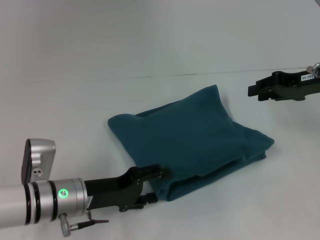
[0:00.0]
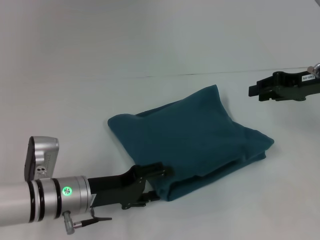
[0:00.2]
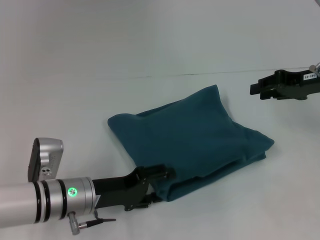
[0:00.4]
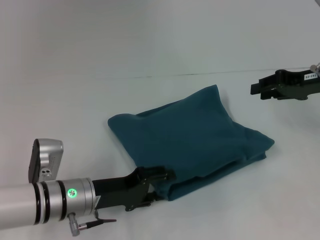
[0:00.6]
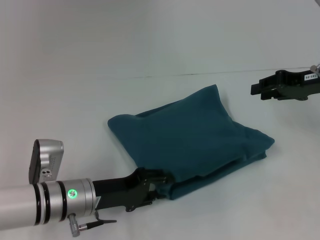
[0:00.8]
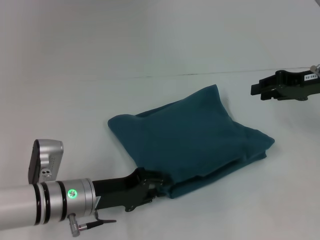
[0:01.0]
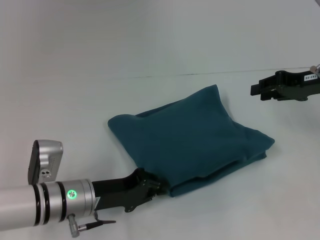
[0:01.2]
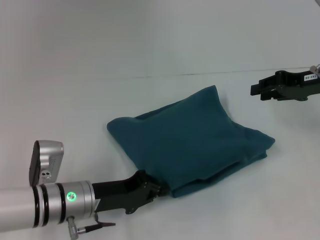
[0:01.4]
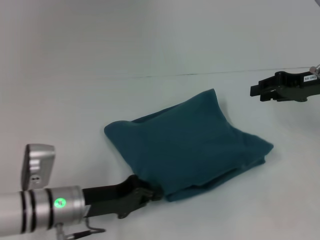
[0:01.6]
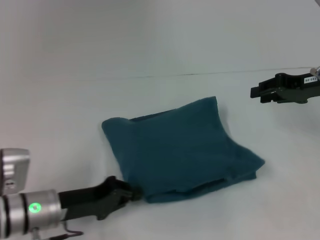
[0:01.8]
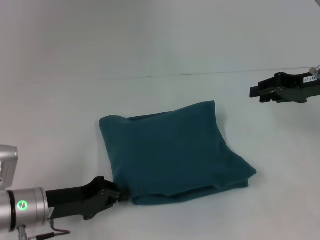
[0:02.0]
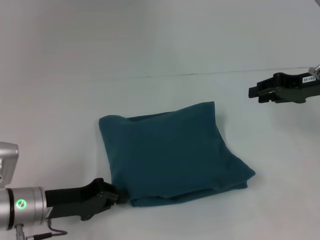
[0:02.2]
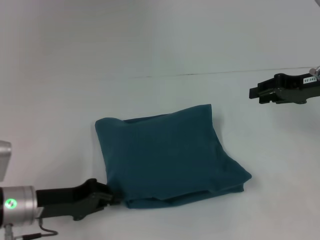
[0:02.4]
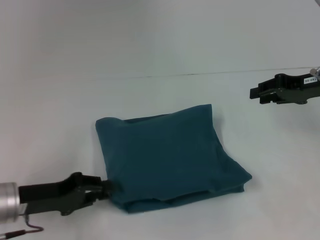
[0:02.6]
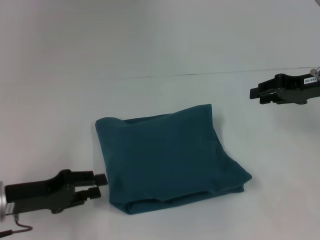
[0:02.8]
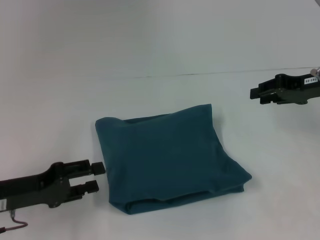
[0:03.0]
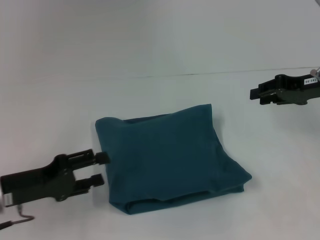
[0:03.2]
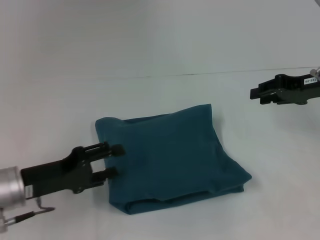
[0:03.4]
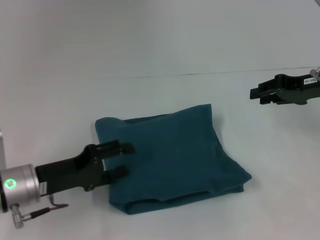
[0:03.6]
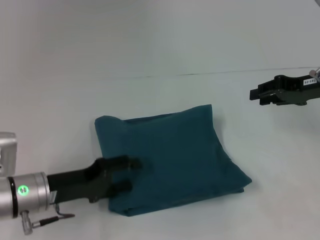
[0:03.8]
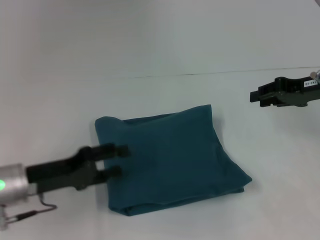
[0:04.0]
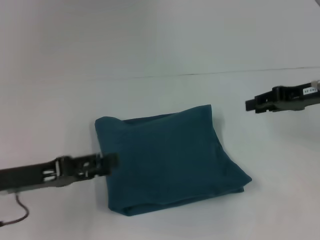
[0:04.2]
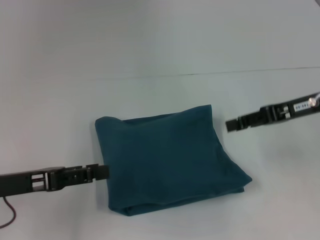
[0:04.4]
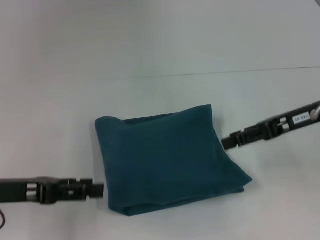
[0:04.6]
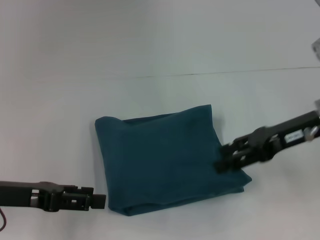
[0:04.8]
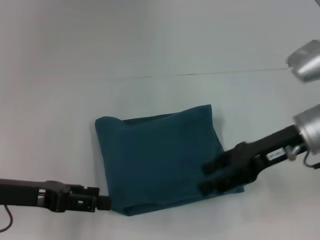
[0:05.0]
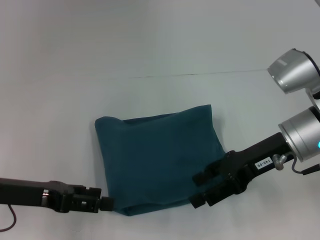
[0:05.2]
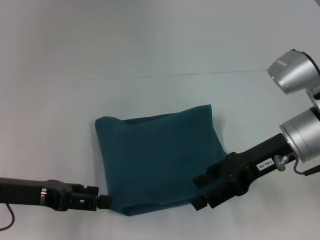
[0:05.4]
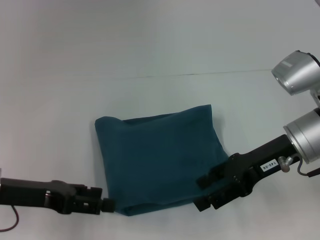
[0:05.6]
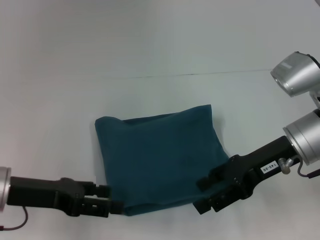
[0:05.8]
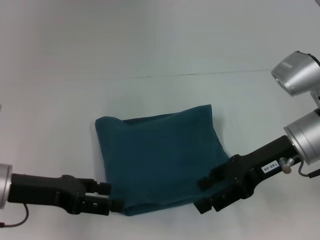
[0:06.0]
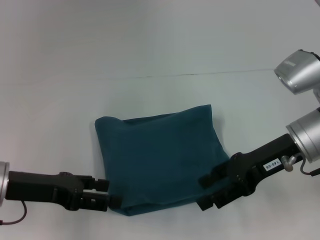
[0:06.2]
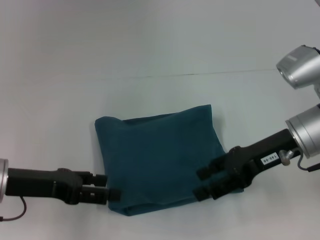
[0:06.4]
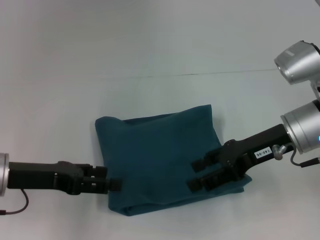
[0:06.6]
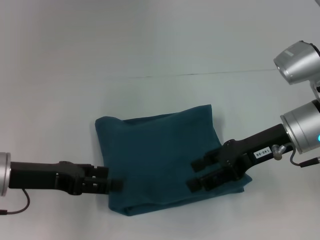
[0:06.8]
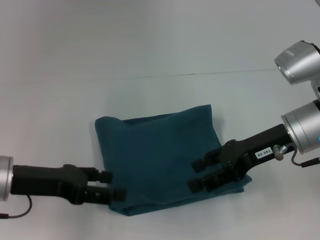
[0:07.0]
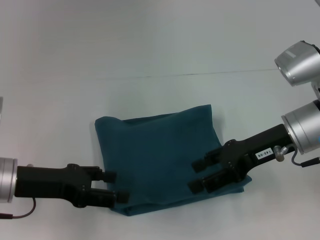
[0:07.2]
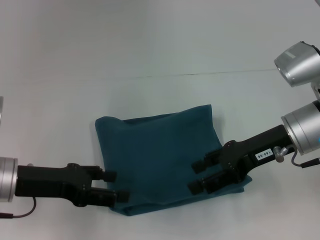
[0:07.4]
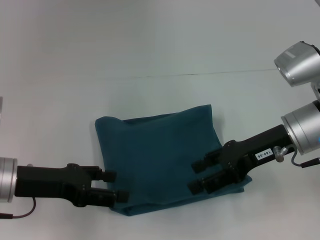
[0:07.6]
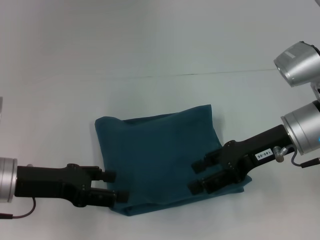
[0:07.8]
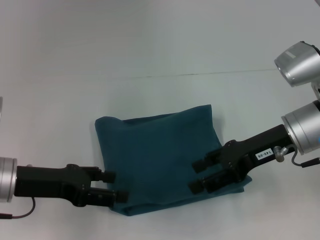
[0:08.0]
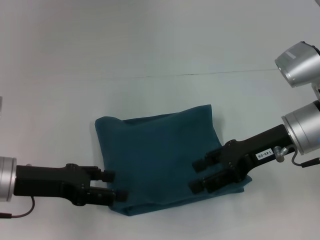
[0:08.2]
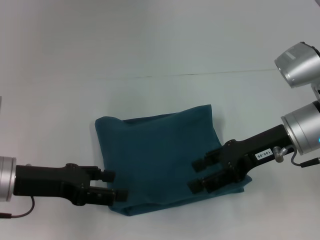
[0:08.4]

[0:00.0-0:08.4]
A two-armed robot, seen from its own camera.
0:00.0 to 0:01.4: The left gripper closes.
0:01.4 to 0:02.8: The left gripper travels to the left by about 10 cm.
0:02.8 to 0:04.2: The left gripper opens up.
0:04.2 to 0:05.6: The right gripper moves to the left and backward, roughly 10 cm, and opens up.
0:05.6 to 0:07.0: The grippers move only a little.
0:07.0 to 0:08.4: Both grippers stay about where they are.

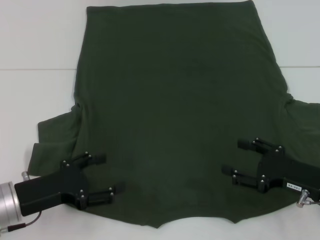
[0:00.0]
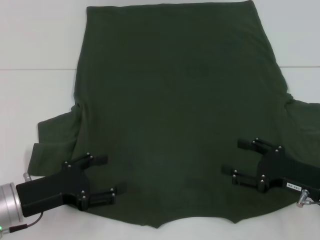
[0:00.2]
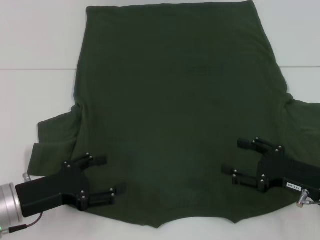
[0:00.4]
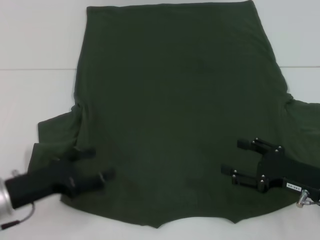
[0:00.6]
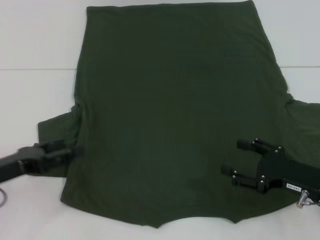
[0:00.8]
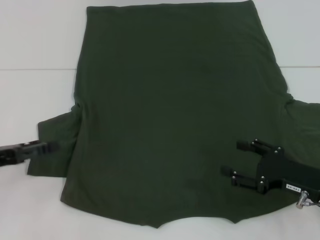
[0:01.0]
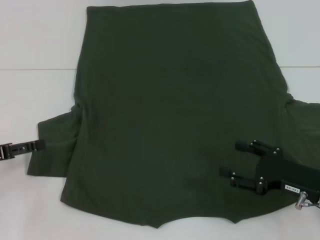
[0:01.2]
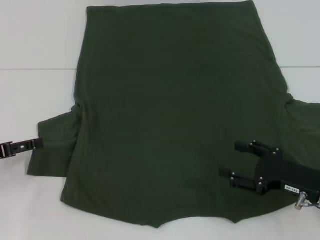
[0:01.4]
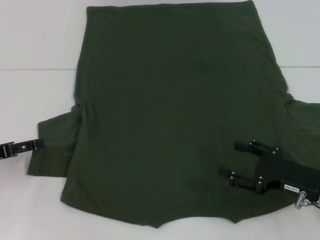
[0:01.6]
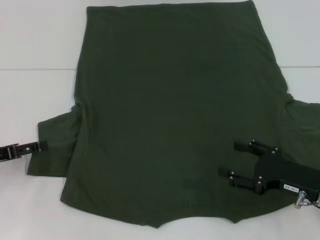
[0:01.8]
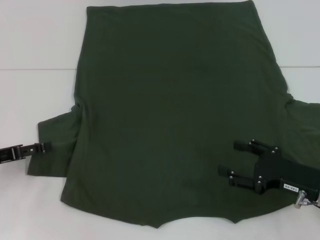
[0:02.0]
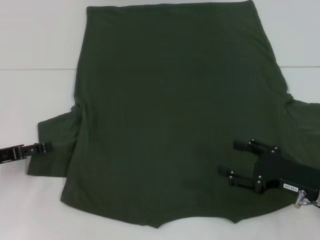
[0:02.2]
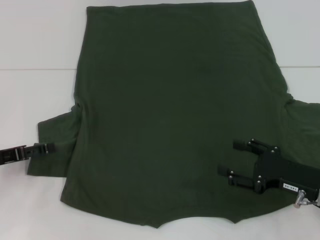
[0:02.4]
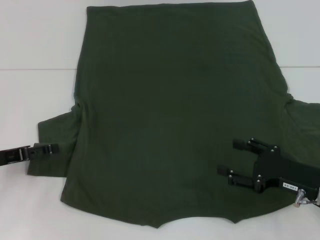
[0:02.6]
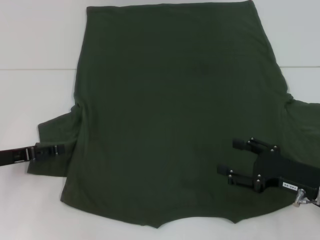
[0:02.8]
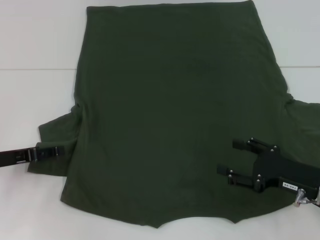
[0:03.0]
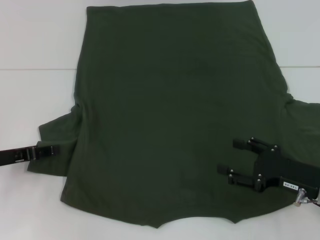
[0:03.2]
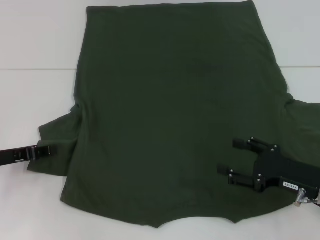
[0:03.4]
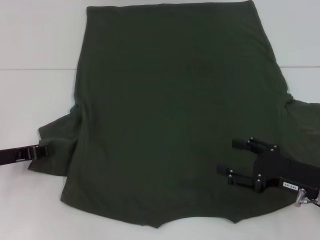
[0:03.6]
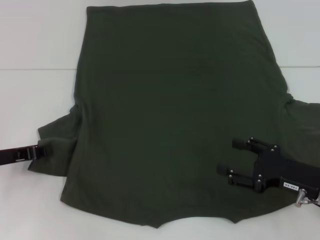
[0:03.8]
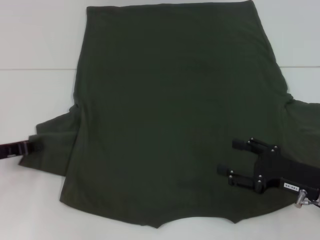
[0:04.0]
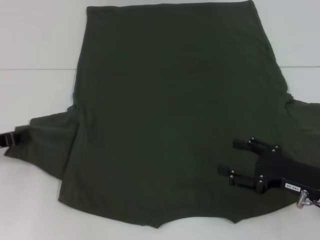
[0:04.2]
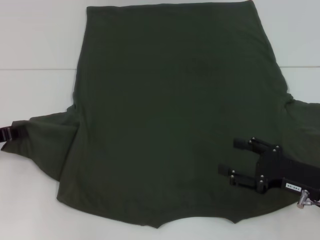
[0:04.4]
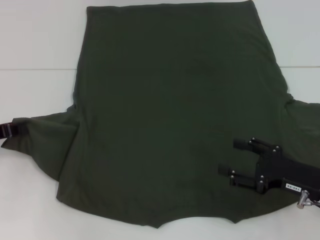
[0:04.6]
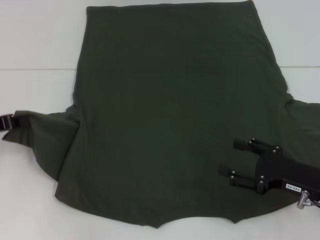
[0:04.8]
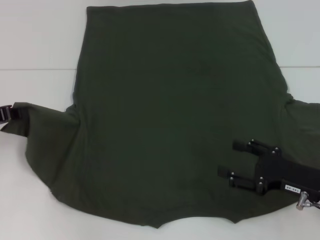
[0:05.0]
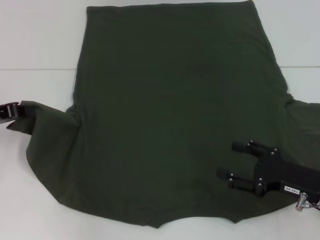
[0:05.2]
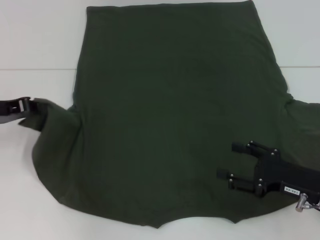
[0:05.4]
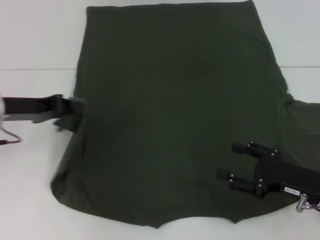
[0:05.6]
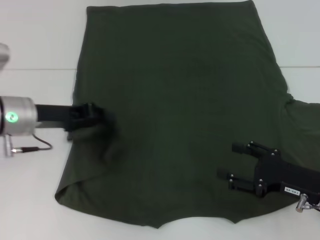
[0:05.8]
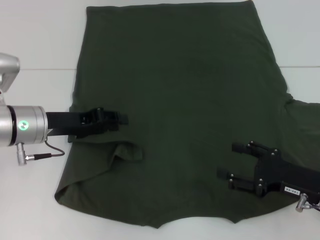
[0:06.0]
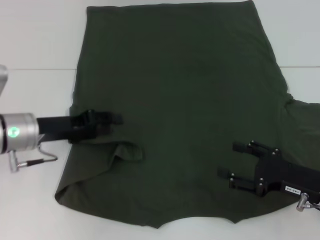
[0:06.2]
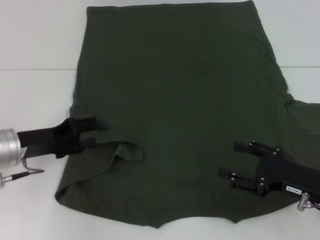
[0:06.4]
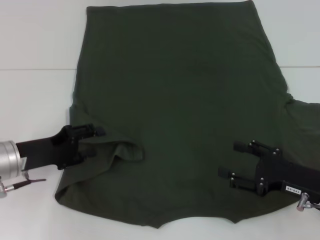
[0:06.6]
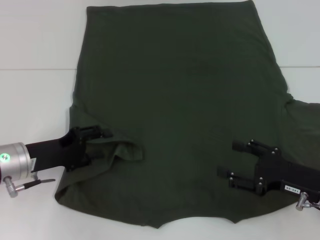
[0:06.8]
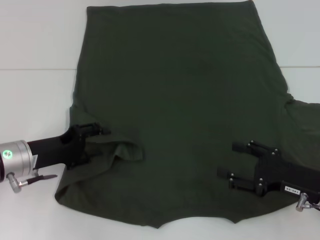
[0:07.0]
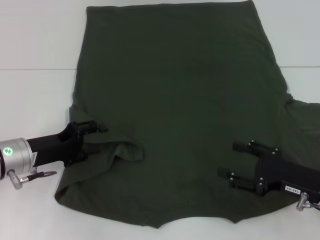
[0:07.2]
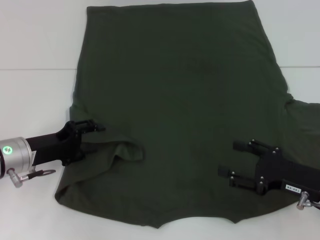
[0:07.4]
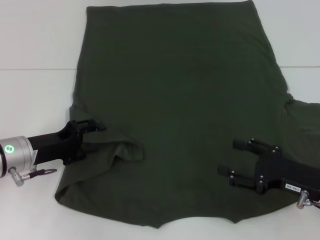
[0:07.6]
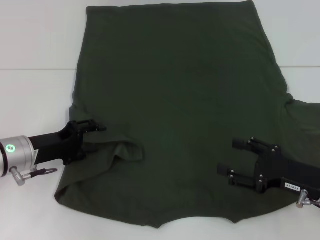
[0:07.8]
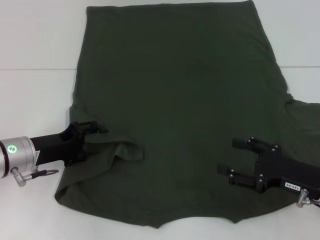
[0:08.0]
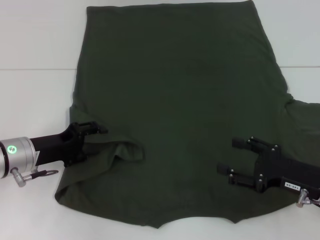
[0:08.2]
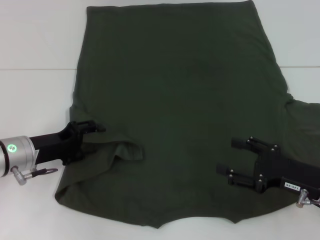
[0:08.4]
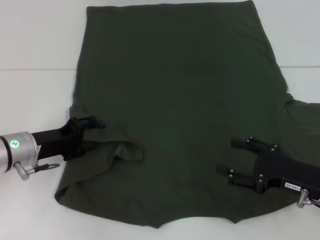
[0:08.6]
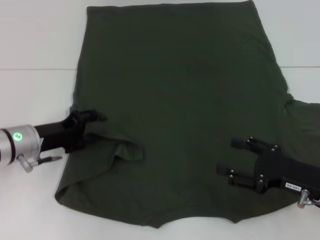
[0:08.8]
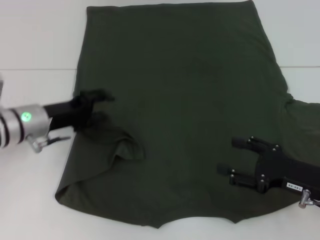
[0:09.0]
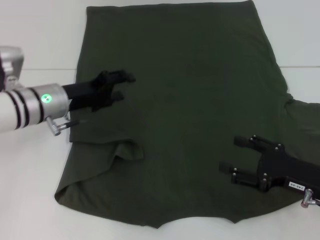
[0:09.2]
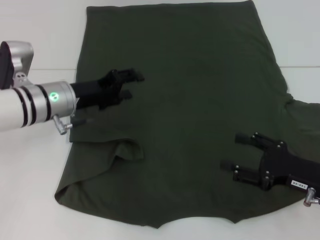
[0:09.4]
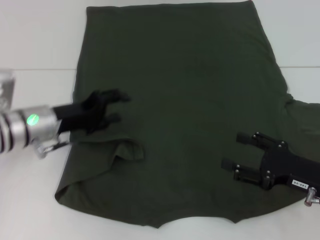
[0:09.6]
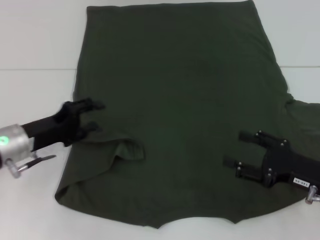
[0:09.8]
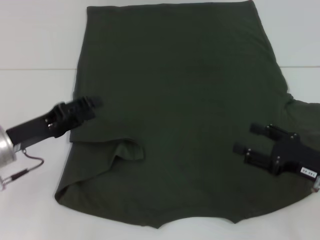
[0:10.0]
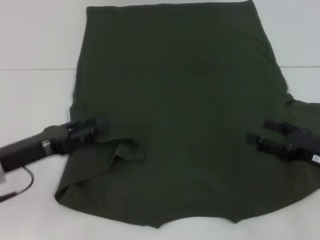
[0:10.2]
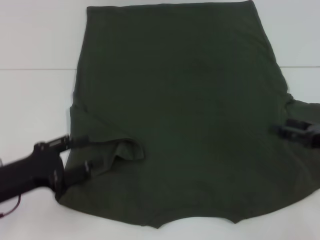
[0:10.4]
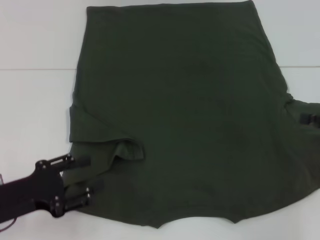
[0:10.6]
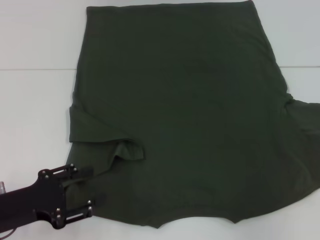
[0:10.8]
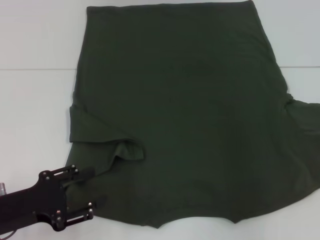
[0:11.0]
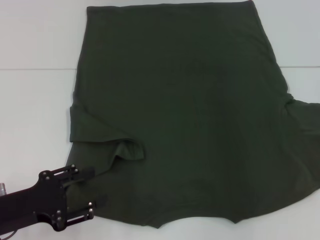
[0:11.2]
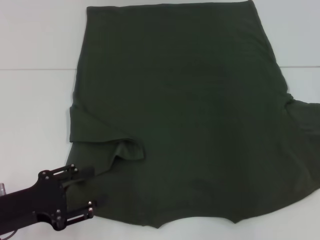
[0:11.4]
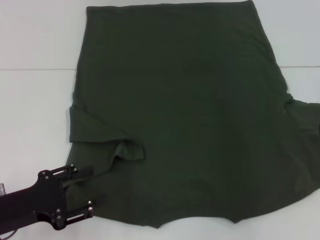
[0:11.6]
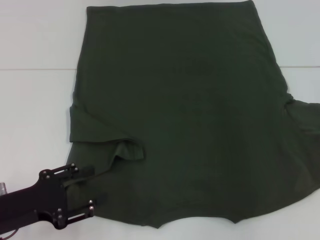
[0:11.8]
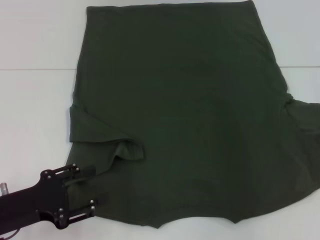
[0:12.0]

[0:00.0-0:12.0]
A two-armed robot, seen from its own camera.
Step, 0:00.0 to 0:09.4: Fold the bottom left sleeve with your left hand.
0:00.0 to 0:01.6: The left gripper moves to the left, approximately 10 cm.
0:01.6 to 0:03.0: The grippers stay close to where they were, moving slightly.
0:03.0 to 0:04.4: The left gripper closes.
0:04.4 to 0:06.0: The left gripper shifts approximately 10 cm to the right.
0:06.0 to 0:07.6: The left gripper is displaced downward by about 5 cm, and opens.
0:07.6 to 0:09.0: The left gripper shifts by roughly 5 cm.
0:09.0 to 0:10.4: The right gripper moves to the right, some 5 cm, while the left gripper shifts approximately 15 cm backward.

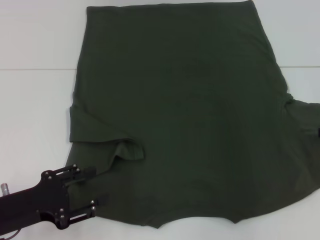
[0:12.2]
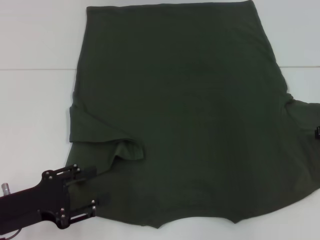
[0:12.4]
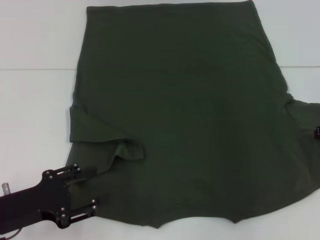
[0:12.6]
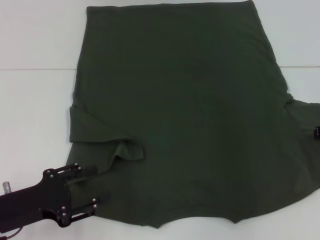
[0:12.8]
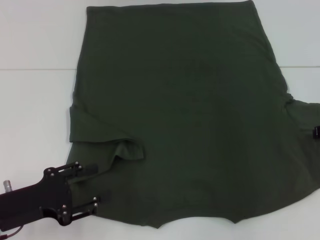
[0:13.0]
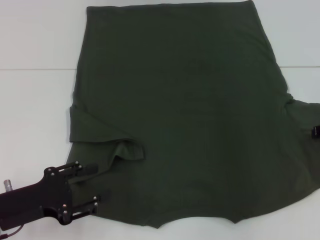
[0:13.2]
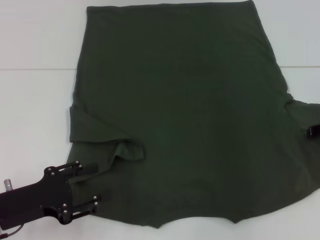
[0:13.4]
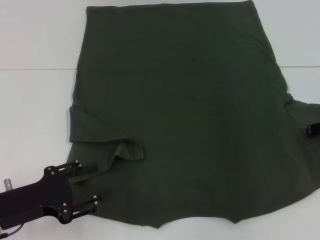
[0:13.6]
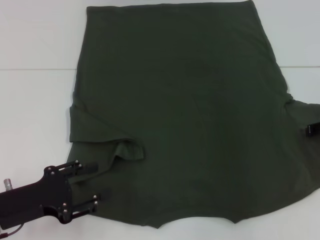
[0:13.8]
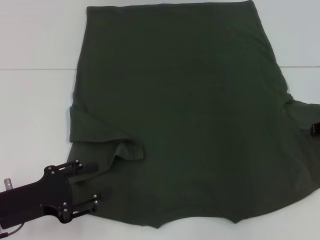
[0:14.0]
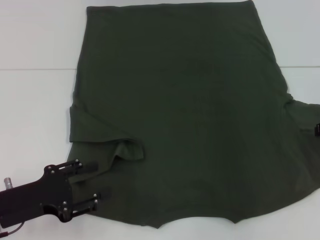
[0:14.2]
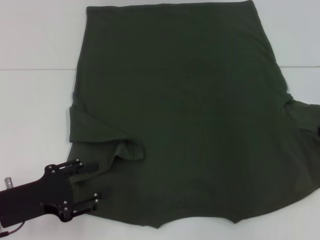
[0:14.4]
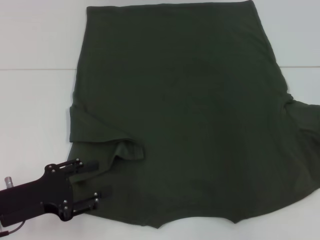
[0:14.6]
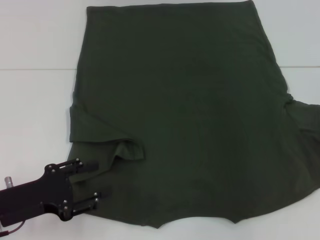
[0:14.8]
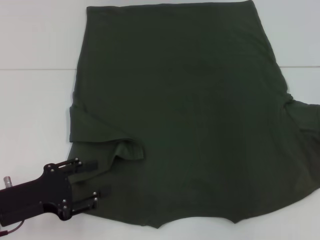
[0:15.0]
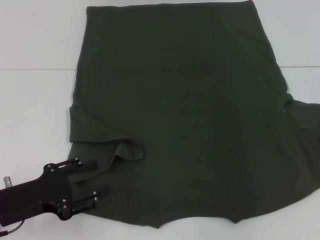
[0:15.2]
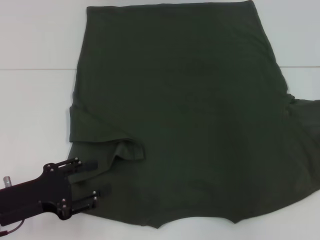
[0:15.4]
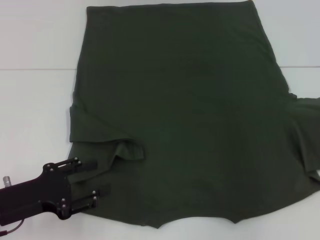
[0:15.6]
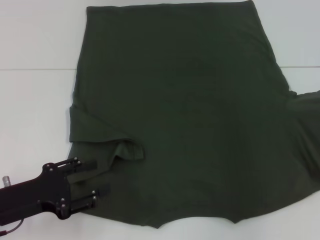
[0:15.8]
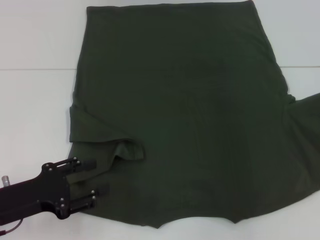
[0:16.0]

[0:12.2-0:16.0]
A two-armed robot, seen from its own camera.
0:12.2 to 0:13.4: There are only small adjustments of the grippers.
